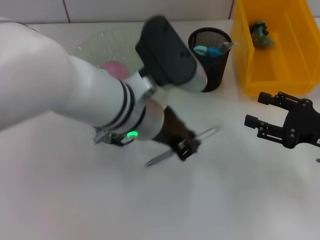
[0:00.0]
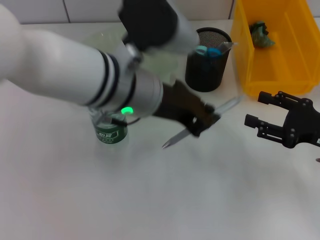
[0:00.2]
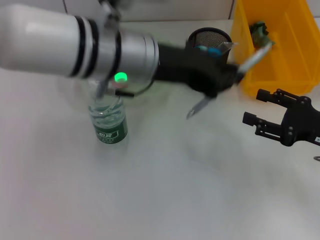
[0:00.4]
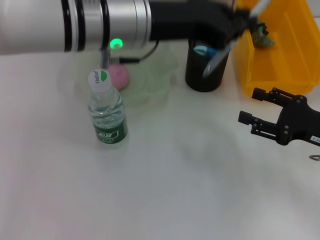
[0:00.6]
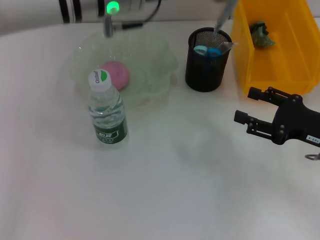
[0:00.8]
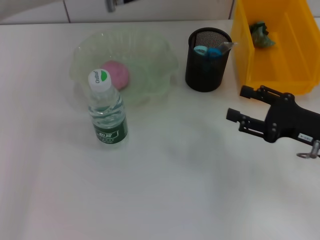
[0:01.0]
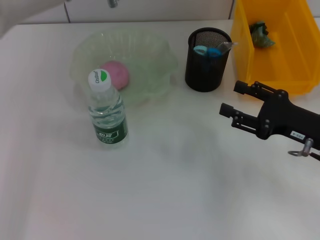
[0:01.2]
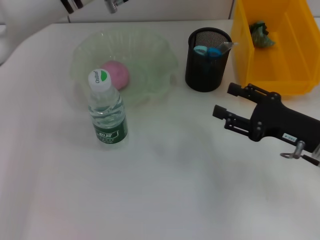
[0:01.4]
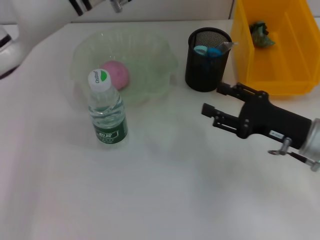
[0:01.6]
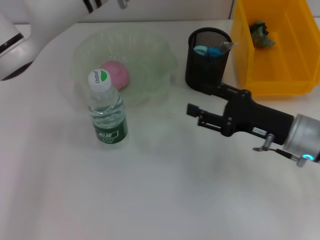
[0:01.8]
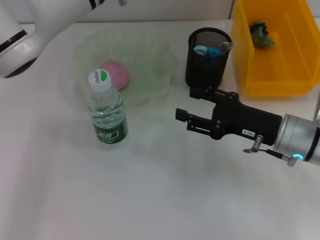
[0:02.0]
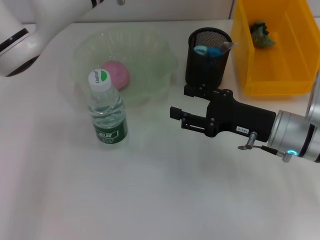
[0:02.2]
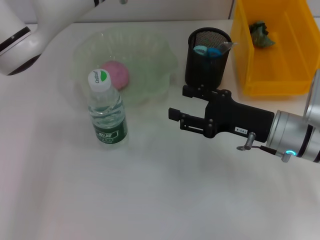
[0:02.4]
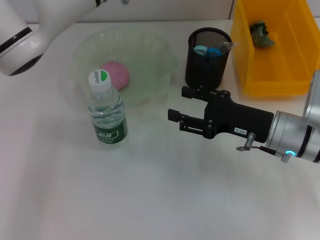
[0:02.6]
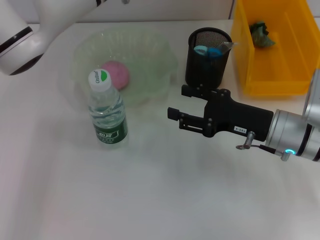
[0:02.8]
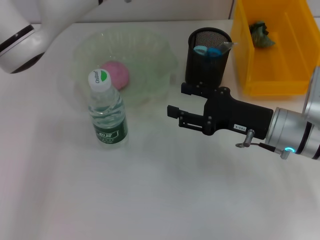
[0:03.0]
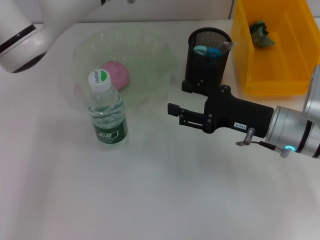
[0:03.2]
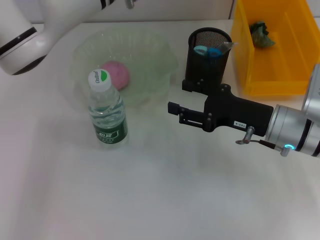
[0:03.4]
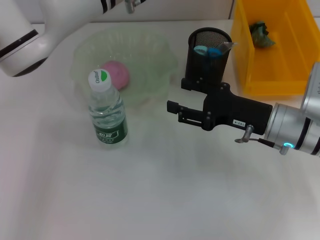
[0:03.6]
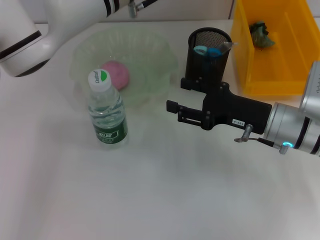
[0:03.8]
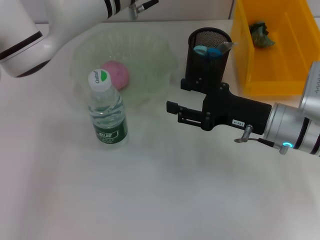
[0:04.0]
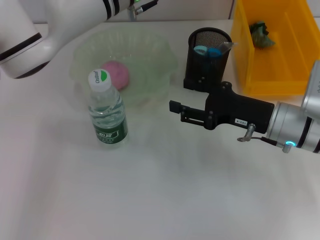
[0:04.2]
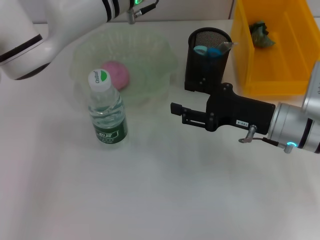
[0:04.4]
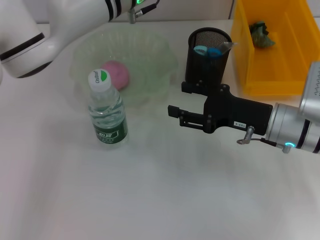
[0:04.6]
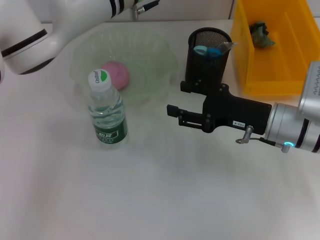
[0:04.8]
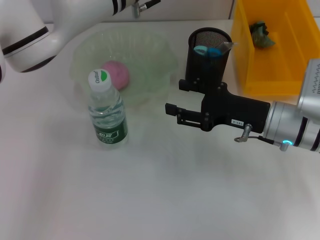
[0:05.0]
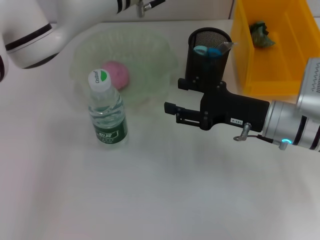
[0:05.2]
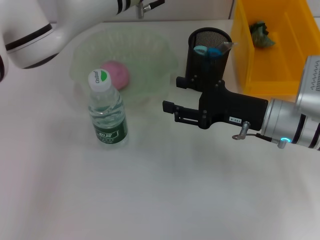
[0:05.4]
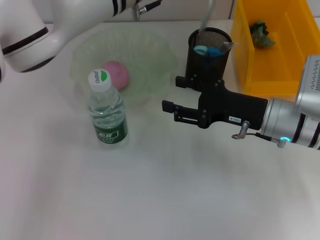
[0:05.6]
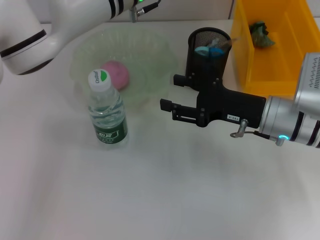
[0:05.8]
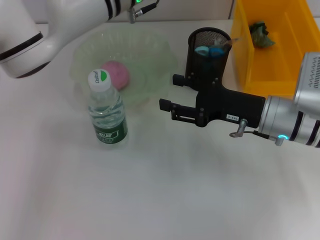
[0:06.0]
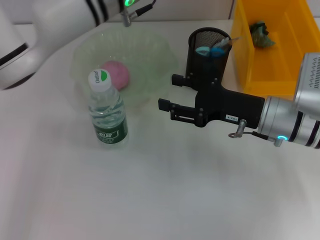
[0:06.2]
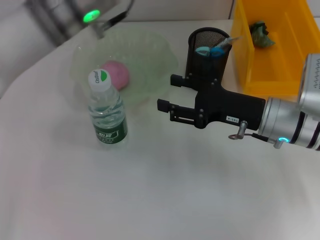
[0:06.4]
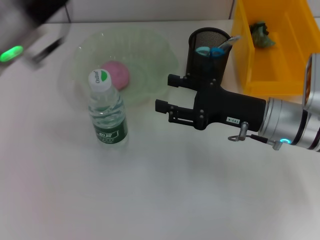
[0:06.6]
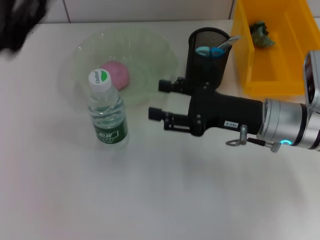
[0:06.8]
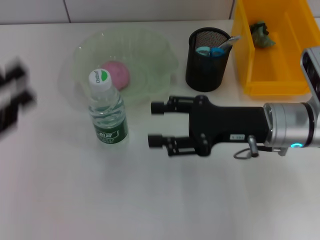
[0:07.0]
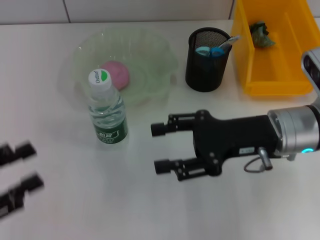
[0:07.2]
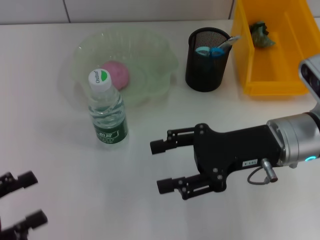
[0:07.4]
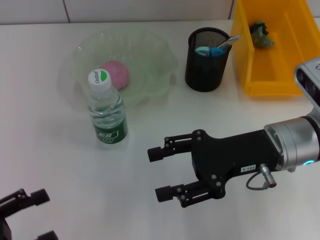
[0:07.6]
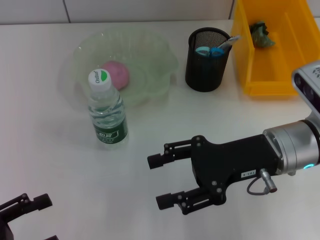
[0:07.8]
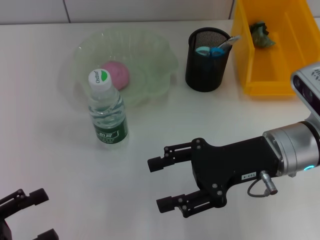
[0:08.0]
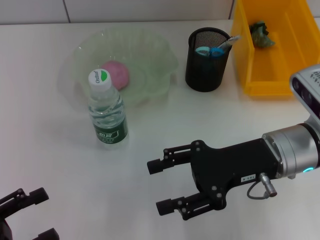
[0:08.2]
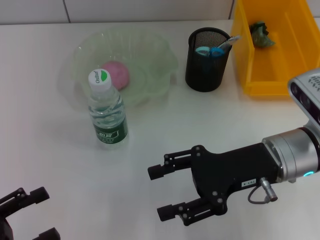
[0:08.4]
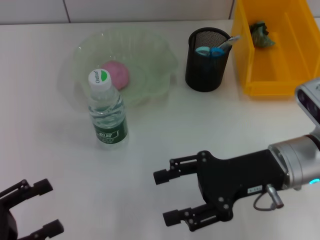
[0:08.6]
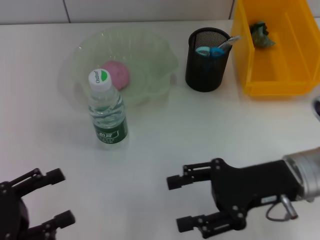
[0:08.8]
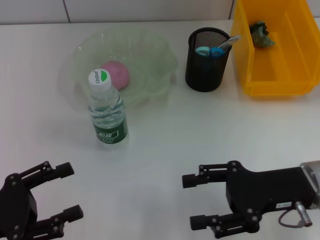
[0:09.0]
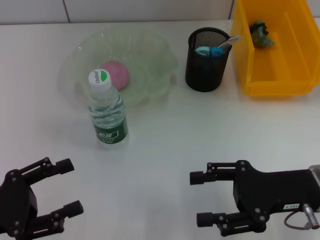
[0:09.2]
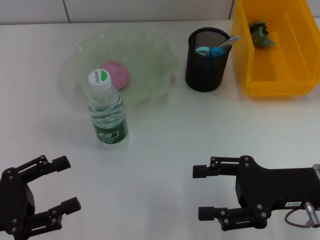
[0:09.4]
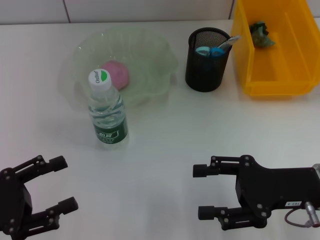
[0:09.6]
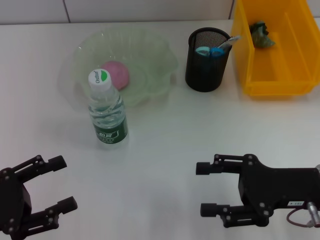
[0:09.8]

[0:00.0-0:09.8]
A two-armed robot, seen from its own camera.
Step, 0:00.0 to 0:05.8: Place the gray spring-action pen into the pen holder with the left hand.
0:00.0 to 0:01.4: The right gripper shifts by approximately 5 cm. The left gripper heads forward and upward, covering approximately 15 cm.
0:01.4 to 0:02.8: The right gripper goes approximately 5 cm to the left.
0:02.8 to 0:05.6: The grippers move only a little.
0:05.6 to 0:07.0: The left gripper is displaced to the left and backward by approximately 35 cm, and opens its fingers.
0:07.0 to 0:08.4: The left gripper is displaced backward and downward by about 10 cm.
0:08.4 to 0:09.8: The right gripper heads to the right, covering about 5 cm.

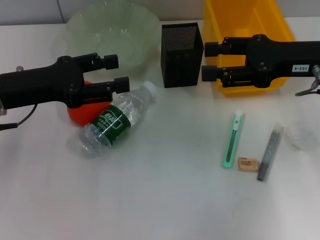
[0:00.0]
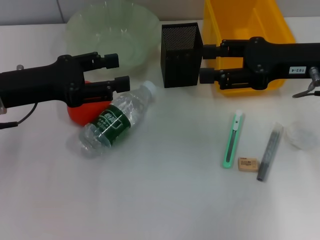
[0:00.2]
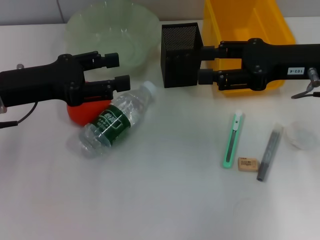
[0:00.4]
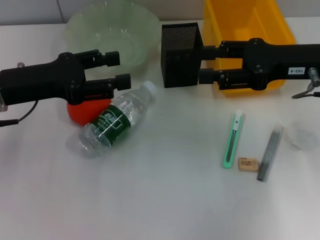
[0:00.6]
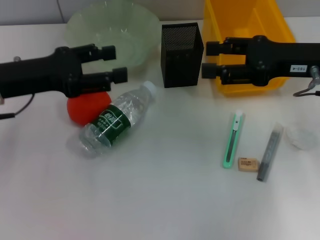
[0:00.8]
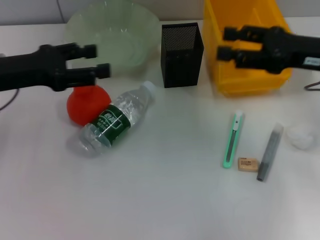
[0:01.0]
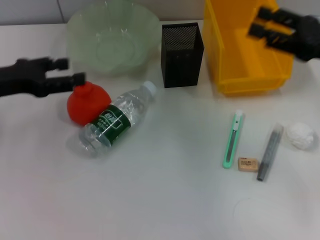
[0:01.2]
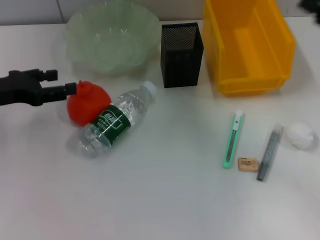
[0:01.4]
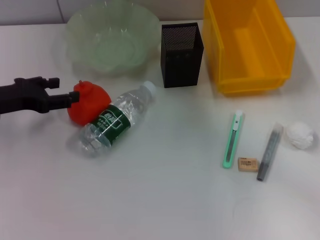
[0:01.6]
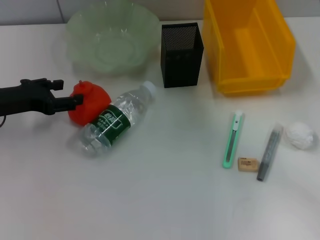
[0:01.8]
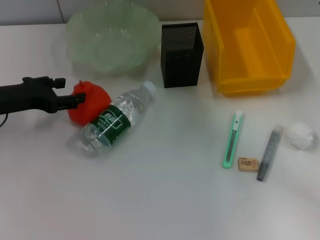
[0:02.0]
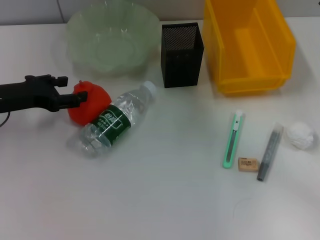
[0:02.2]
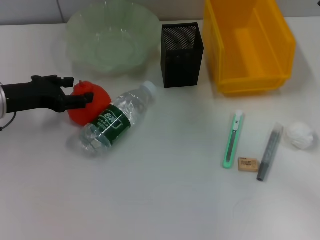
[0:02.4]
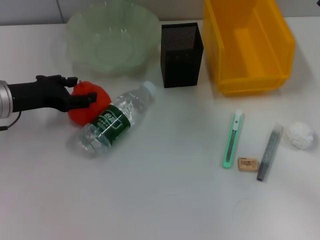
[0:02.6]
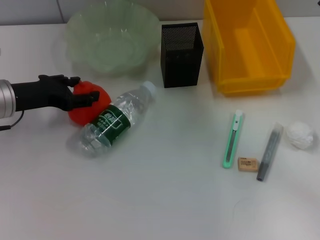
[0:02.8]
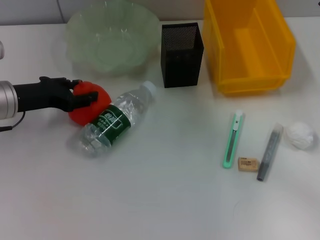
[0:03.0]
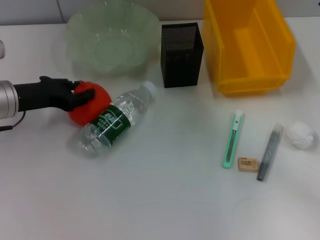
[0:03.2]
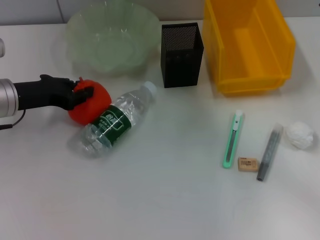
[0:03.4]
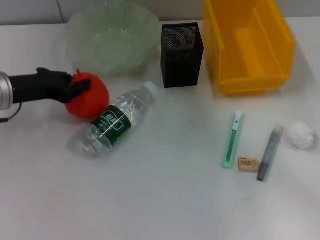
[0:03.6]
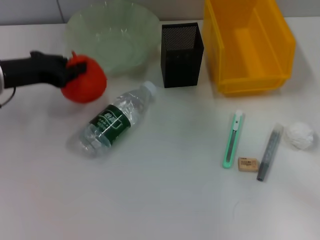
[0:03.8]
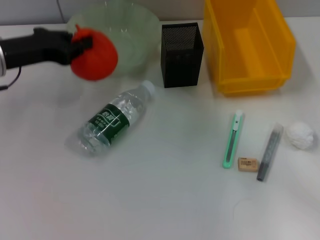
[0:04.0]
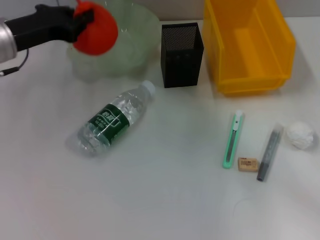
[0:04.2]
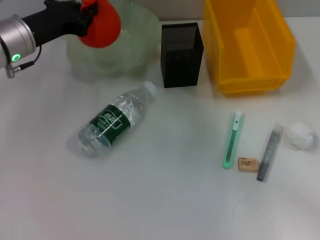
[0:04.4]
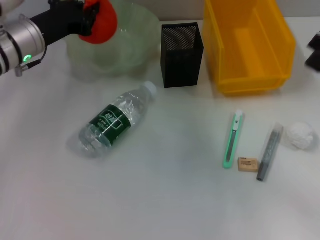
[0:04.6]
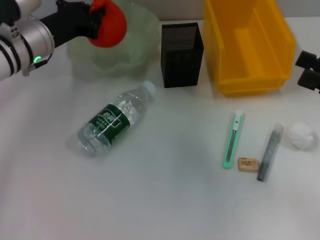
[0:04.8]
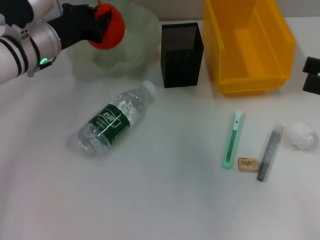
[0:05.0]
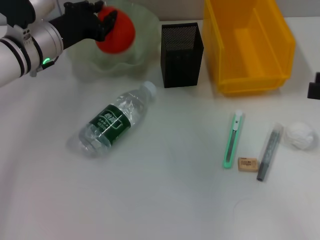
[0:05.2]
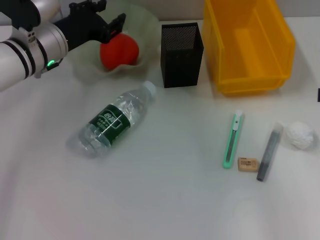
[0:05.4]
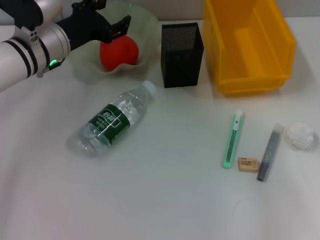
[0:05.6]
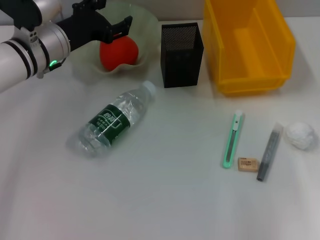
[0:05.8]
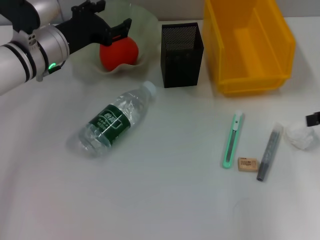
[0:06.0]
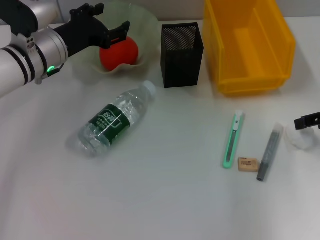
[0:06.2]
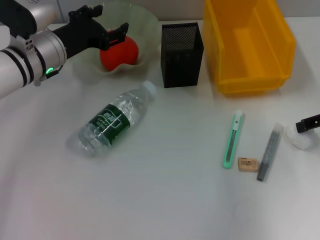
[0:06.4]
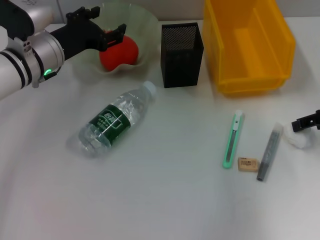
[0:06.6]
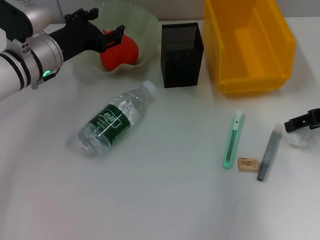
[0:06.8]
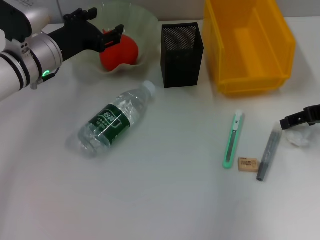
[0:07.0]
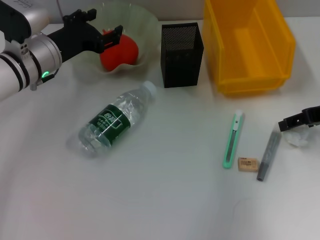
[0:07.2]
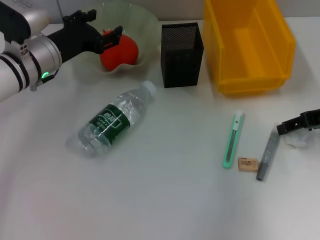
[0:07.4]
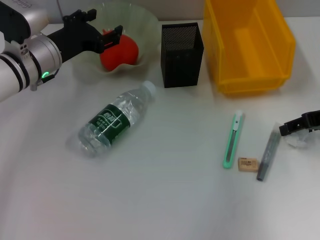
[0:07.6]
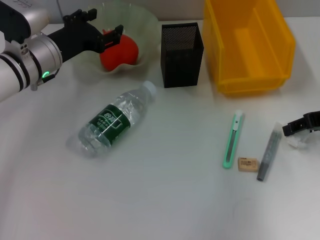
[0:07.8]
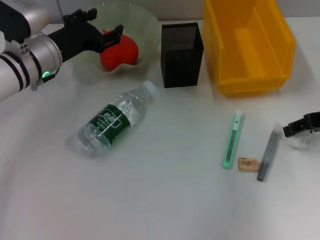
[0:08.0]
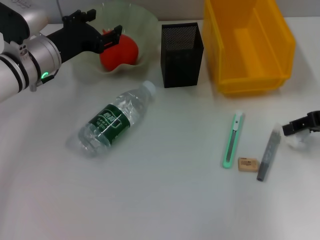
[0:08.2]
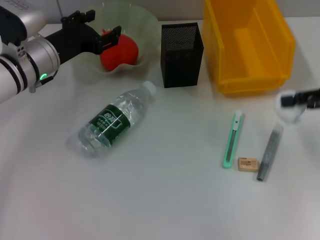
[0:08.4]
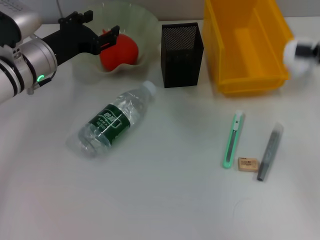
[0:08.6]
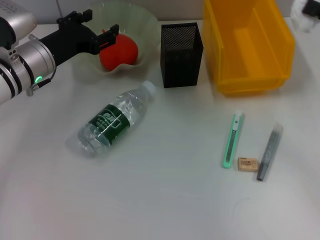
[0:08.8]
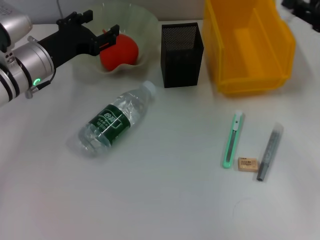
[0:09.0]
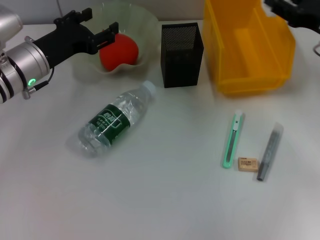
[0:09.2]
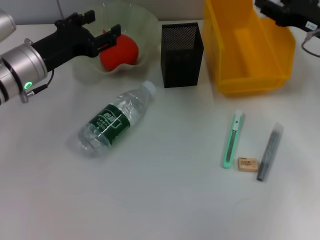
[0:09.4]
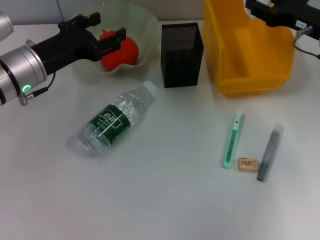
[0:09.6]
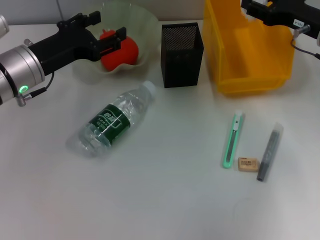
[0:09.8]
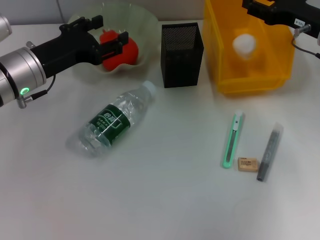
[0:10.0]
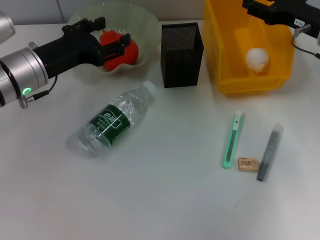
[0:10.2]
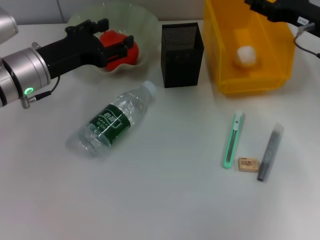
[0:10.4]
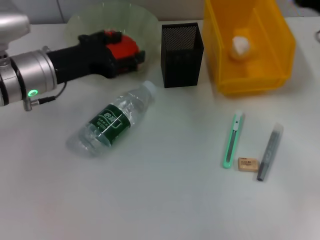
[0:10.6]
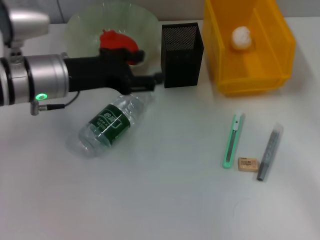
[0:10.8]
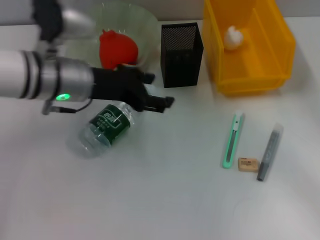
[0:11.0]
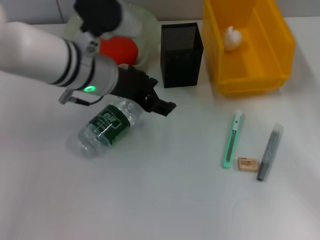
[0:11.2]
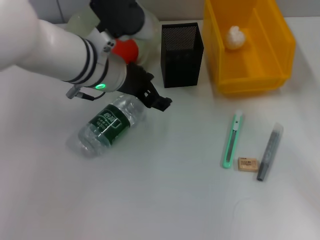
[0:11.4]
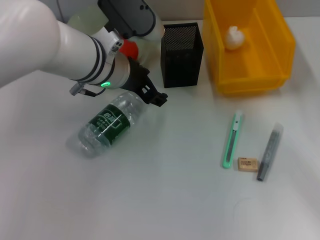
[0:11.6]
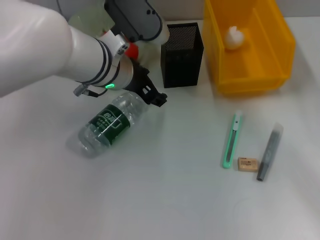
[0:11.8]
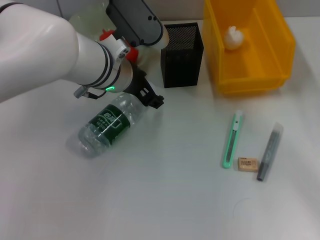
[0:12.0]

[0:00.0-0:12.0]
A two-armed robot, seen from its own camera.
Step, 0:00.0 to 0:03.2: Grab the orange with the left hand.
Step, 0:03.4 to 0:05.4: Place the orange into the fruit bowl with the left hand.
Step, 0:05.6 to 0:08.0: Grab the paper ball with the right hand.
Step, 0:08.2 to 0:10.2: Place the paper ball into the trash can with the right hand.
0:00.0 to 0:01.6: The right gripper moves to the right and backward, some 10 cm. The left gripper changes place by some 5 cm.
0:01.6 to 0:03.0: The grippers move only a little.
0:03.0 to 0:04.4: The left gripper is displaced forward by approximately 5 cm, and closes up.
0:04.4 to 0:06.0: The left gripper opens its fingers. The right gripper goes approximately 5 cm upward.
0:06.0 to 0:07.6: The right gripper shifts by approximately 5 cm.
0:09.0 to 0:10.4: The right gripper heads forward, covering roughly 5 cm.
0:10.4 to 0:12.0: The left gripper travels to the right by roughly 15 cm; the right gripper heads backward and to the right, covering approximately 15 cm.
